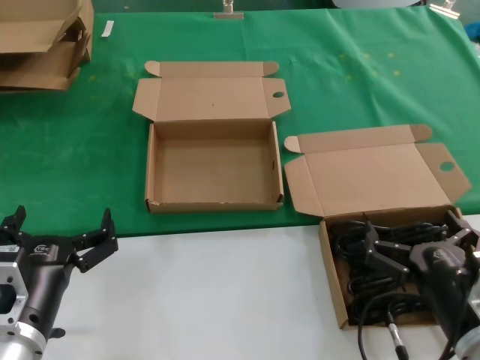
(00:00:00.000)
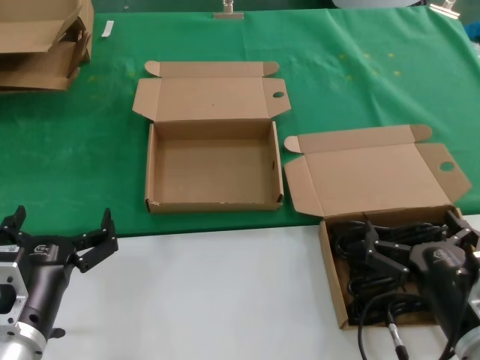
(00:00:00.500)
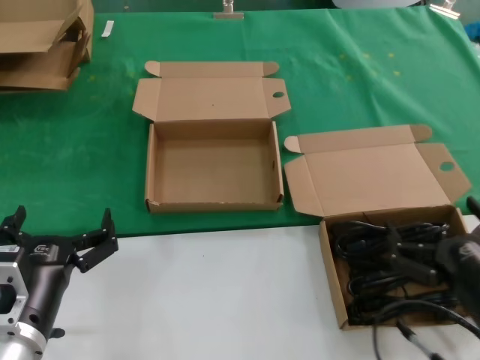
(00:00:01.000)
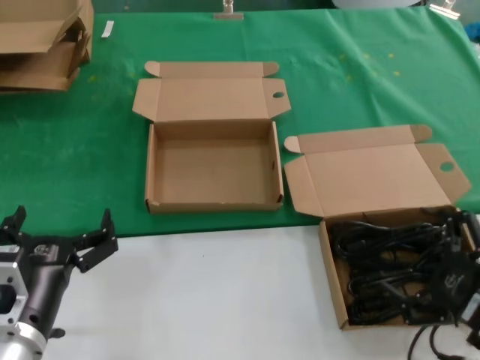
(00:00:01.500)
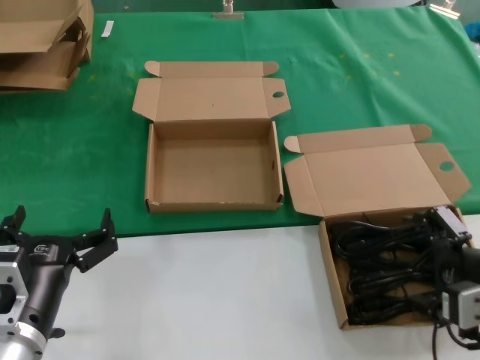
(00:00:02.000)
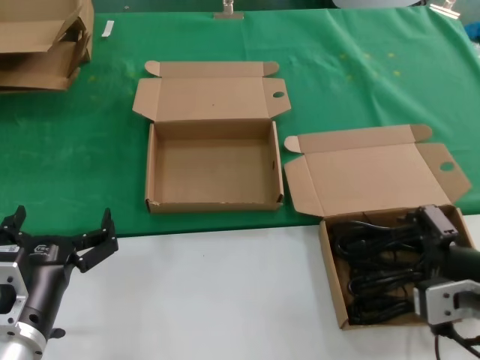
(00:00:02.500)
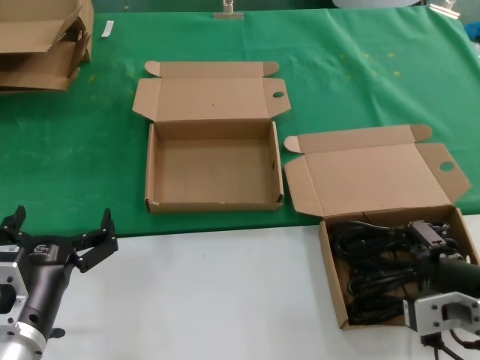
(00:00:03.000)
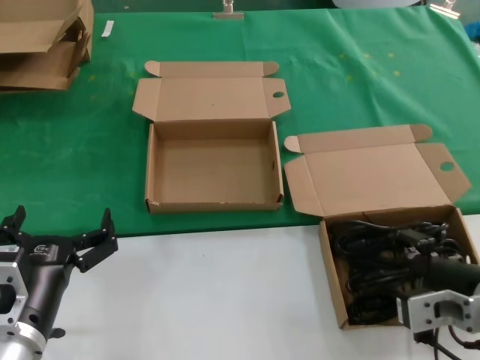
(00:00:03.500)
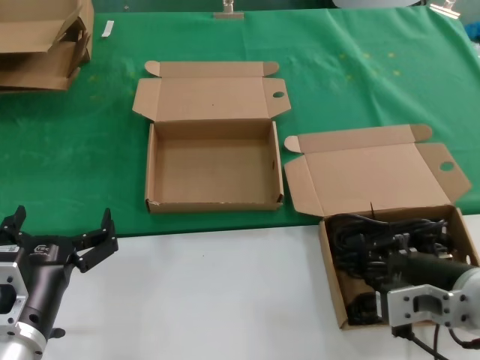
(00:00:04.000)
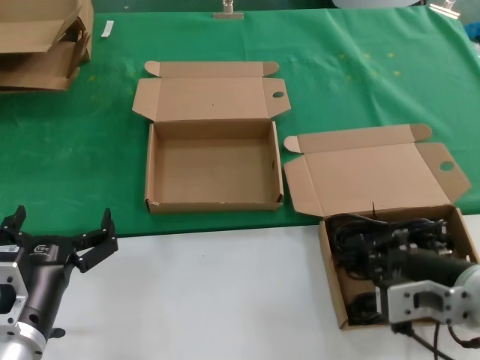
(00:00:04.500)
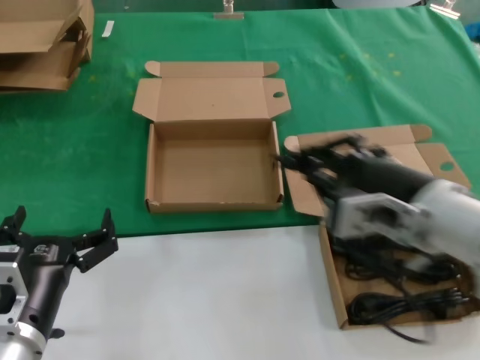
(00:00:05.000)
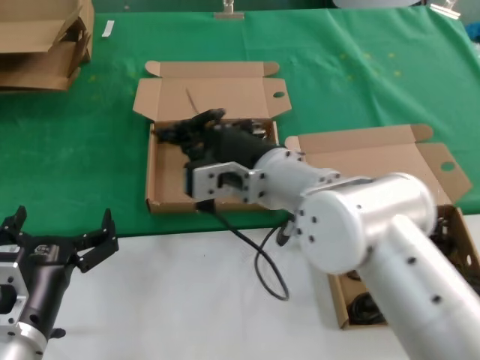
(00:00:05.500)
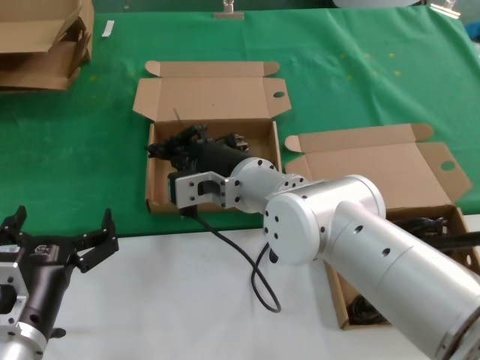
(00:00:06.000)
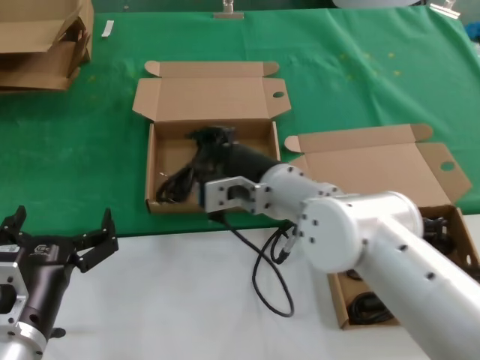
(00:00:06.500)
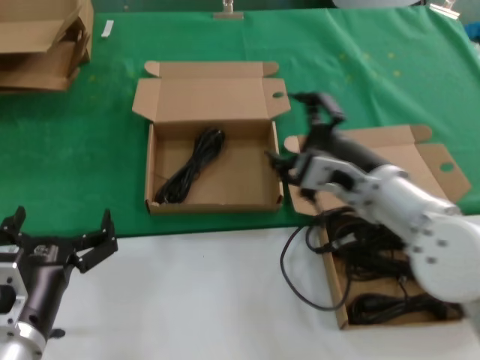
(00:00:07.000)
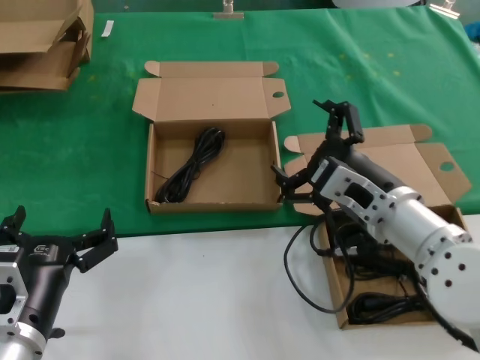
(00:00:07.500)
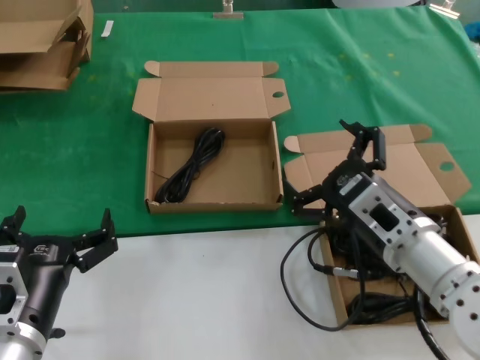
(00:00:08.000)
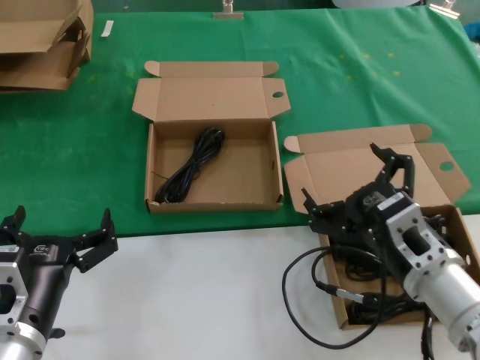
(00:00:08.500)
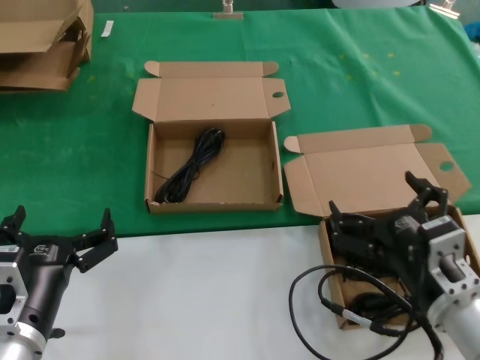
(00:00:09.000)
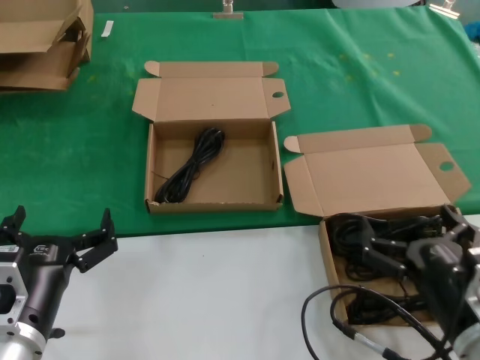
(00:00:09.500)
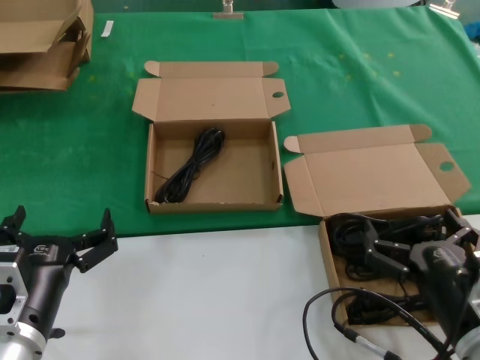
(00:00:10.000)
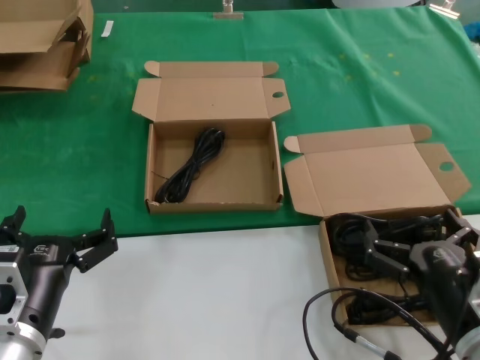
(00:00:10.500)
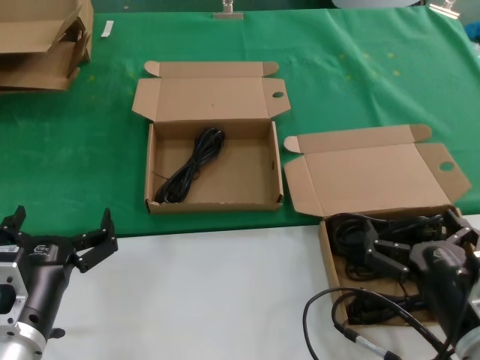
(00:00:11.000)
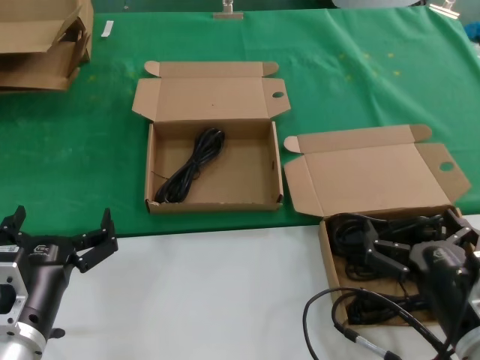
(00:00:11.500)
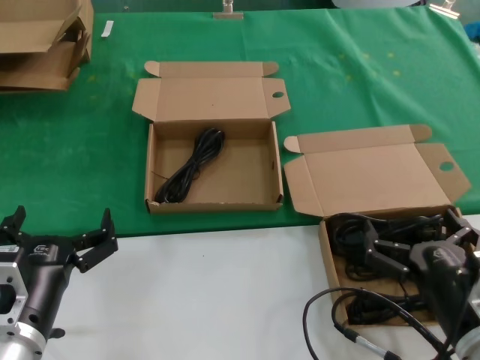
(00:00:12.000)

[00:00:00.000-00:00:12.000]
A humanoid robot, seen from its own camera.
Task of the whole recording: take the parts from the box containing them and put them into an empty box.
Step, 00:00:00.000 to 00:00:03.500: Grasp the data cable.
Step, 00:00:04.000 to 00:00:06.500: Place the data cable in the another box.
00:00:00.000 to 00:00:02.000: The right hand travels upward and to the right by roughly 10 cm.
00:00:02.000 to 00:00:04.000: The right hand is displaced to the left by roughly 5 cm.
00:00:04.000 to 00:00:06.000: The right hand is displaced to the left and forward by roughly 30 cm.
00:00:06.000 to 00:00:08.000: The right hand is displaced to the right and backward by approximately 20 cm.
00:00:08.000 to 00:00:10.000: The right hand heads backward, downward and to the right, covering roughly 15 cm.
00:00:10.000 to 00:00:12.000: The two hands keep their place.

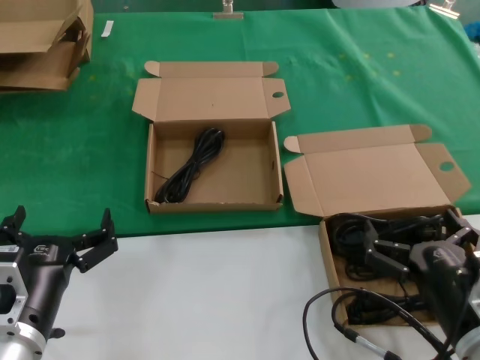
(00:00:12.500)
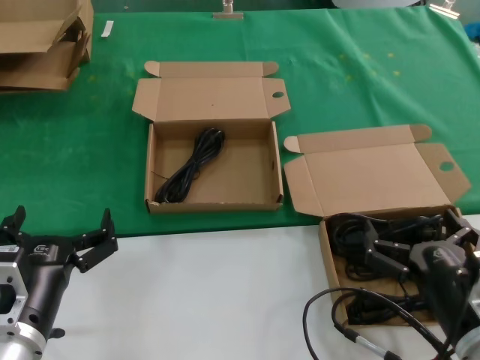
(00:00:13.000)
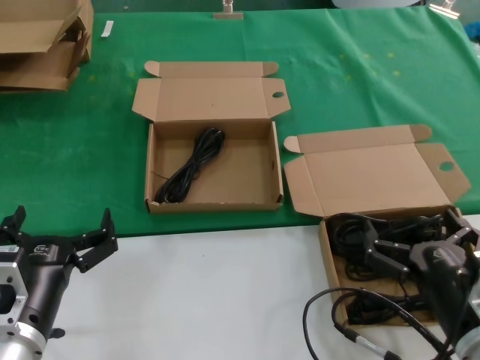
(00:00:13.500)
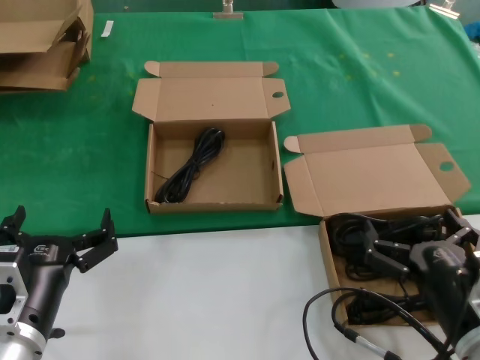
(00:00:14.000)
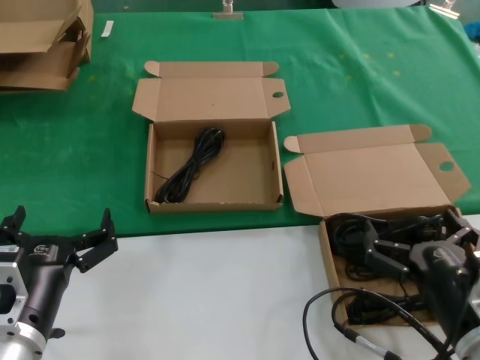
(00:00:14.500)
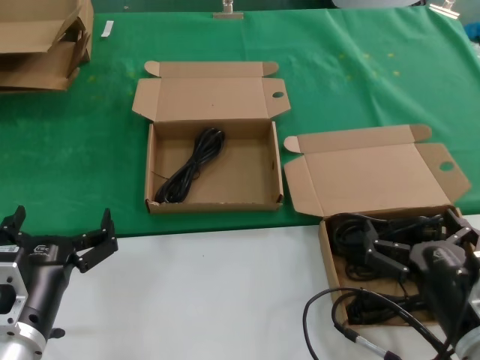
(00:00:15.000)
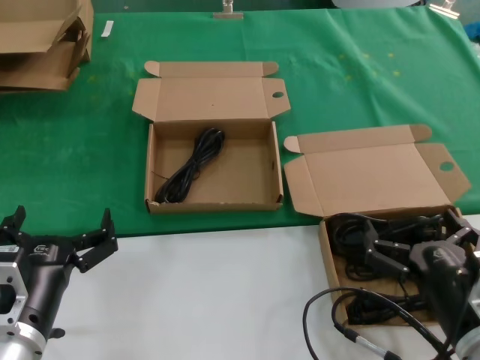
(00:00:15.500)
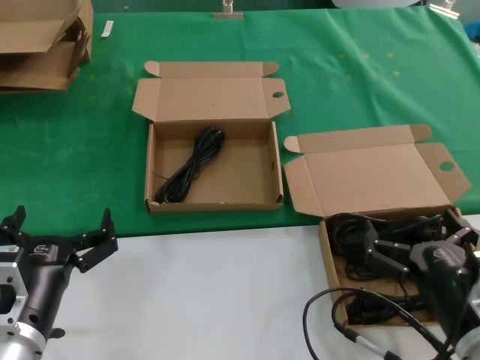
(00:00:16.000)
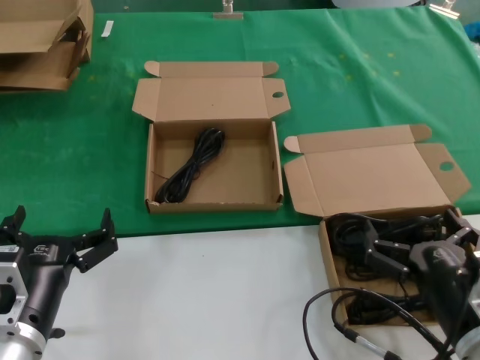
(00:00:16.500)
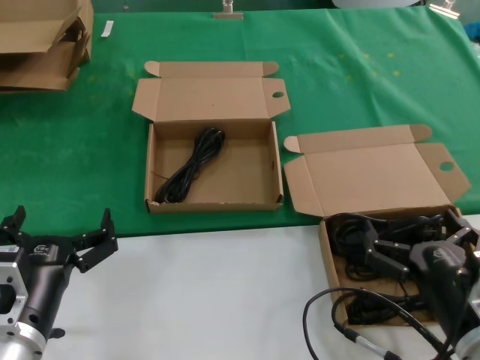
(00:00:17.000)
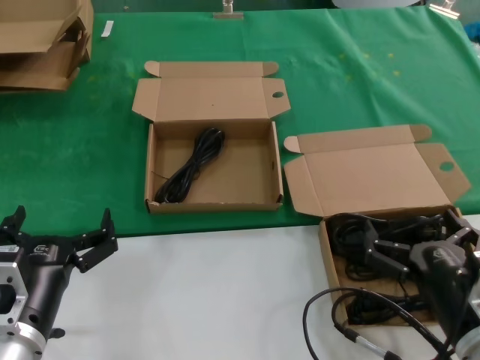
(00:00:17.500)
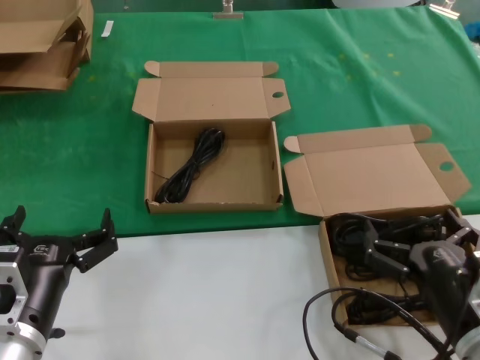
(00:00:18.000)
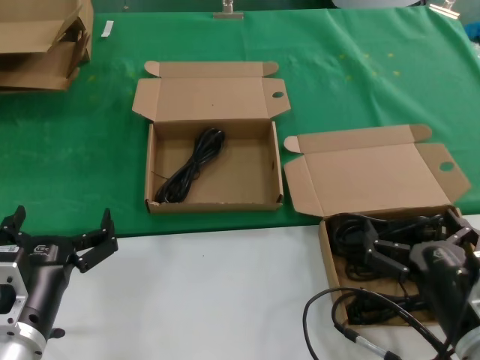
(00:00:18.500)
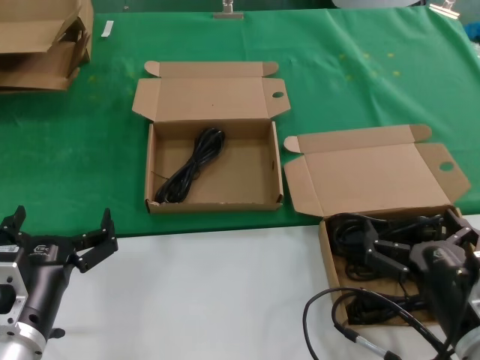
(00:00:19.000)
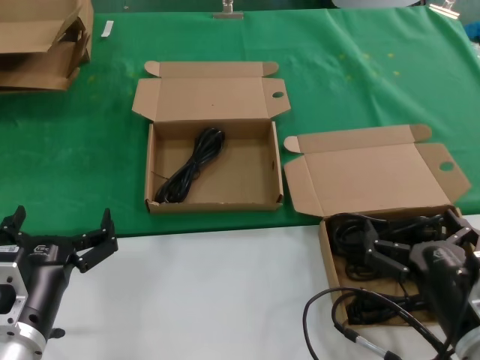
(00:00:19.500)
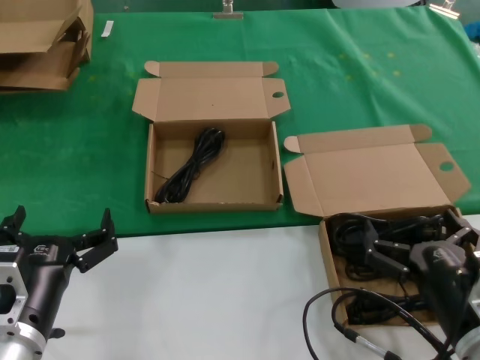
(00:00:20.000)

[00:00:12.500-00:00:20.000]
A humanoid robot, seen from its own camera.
Task of the whole recording: take the parts from the box containing them and put them into an empty box.
00:00:12.500 to 00:00:20.000: Neither hand changes place.

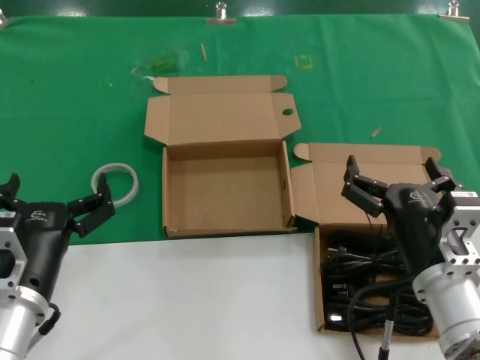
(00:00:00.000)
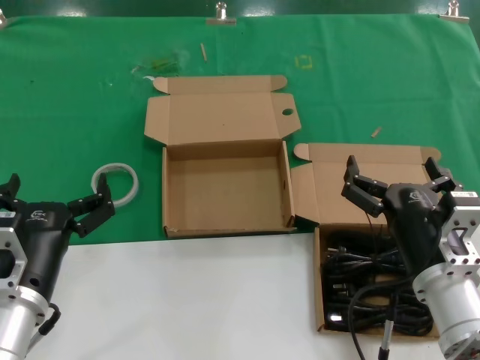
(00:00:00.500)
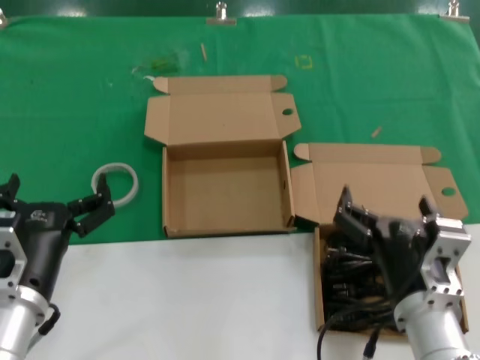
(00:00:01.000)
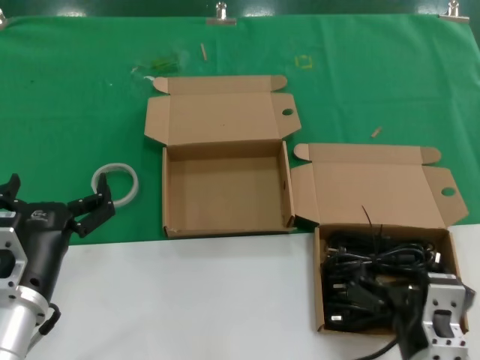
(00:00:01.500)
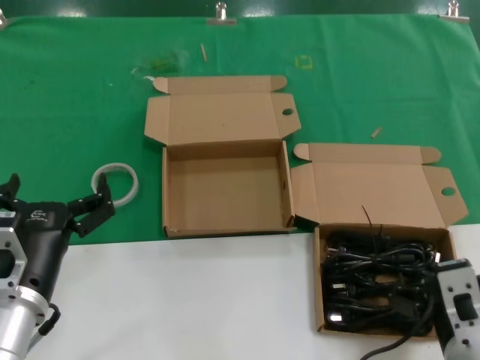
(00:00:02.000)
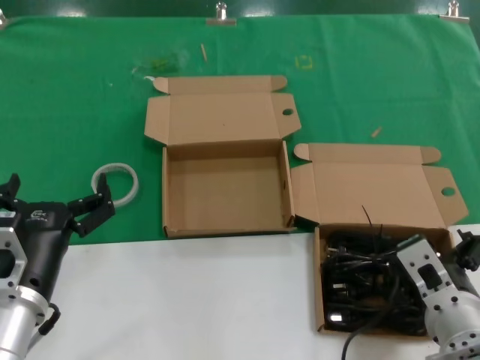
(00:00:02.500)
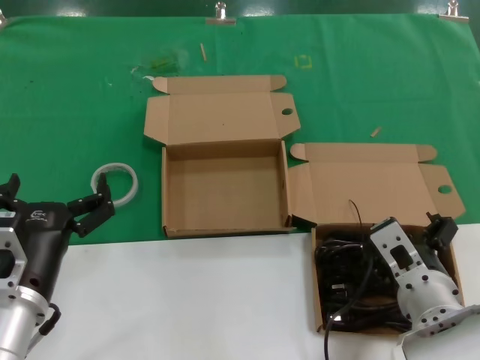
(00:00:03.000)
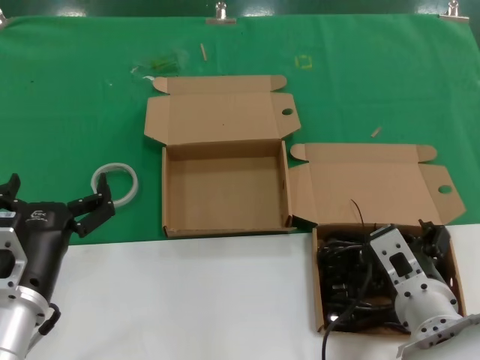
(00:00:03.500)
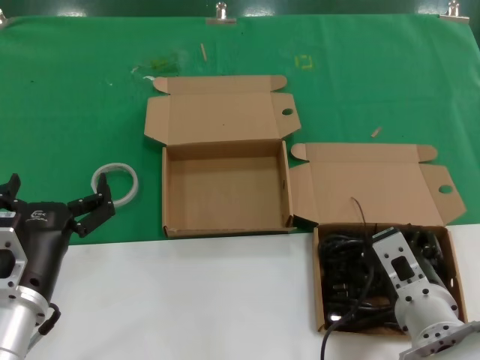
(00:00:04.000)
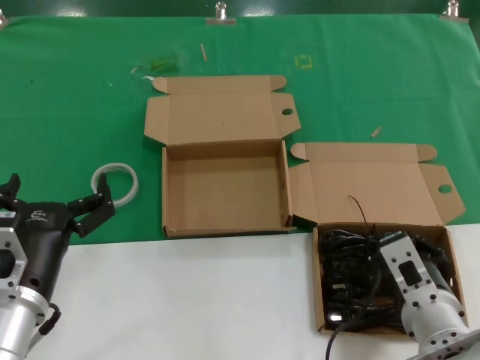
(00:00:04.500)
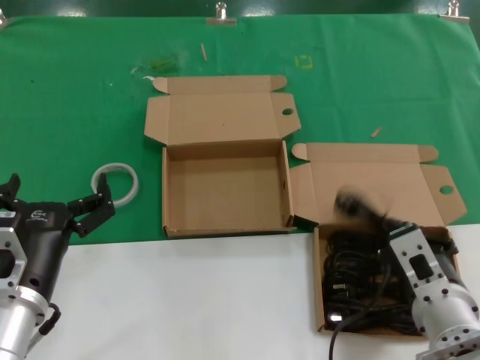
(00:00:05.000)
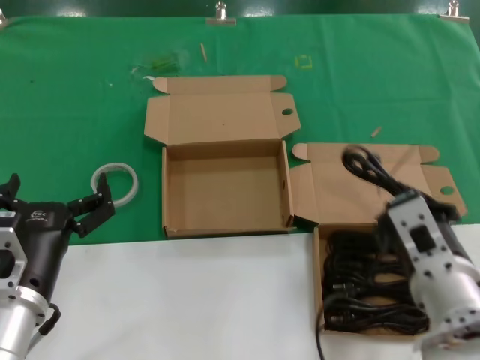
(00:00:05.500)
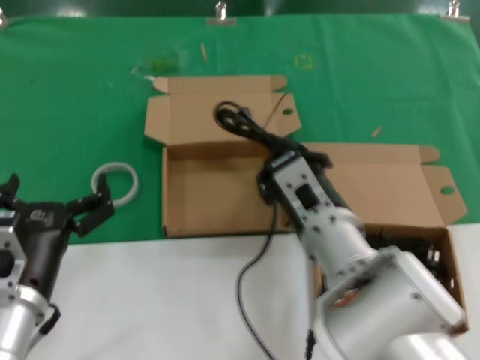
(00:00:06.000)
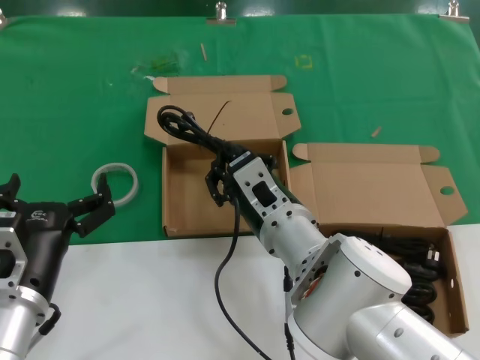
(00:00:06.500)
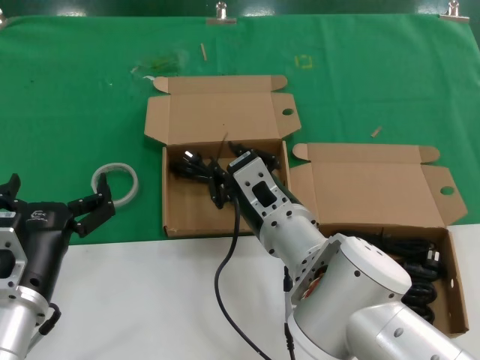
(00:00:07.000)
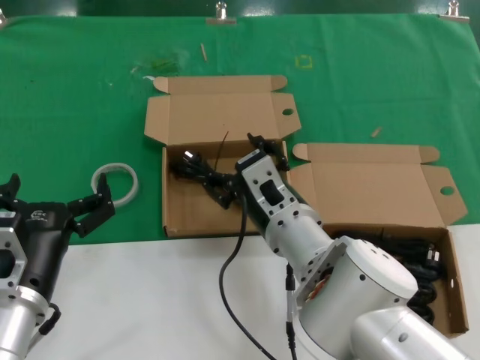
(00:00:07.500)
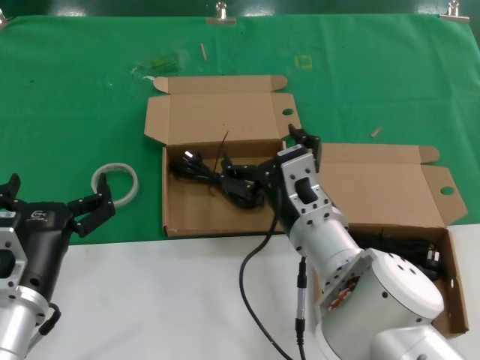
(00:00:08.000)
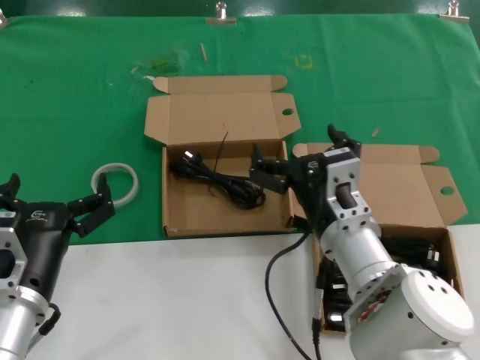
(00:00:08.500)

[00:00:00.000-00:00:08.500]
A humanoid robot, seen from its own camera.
Task of the whole recording: take the parts from the box containing them and put them into an empty box.
Step, 00:00:00.000 to 00:00:05.000: Grasp the data cable.
Step, 00:00:05.500 to 00:00:06.500: Place the data cable in the another box.
00:00:00.000 to 00:00:02.000: The right hand heads backward, covering roughly 5 cm.
00:00:02.000 to 00:00:04.000: The right hand goes approximately 10 cm forward.
00:00:04.000 to 00:00:06.500: The right hand goes roughly 15 cm to the left and forward.
00:00:06.500 to 00:00:08.500: The right hand is displaced to the right by about 5 cm.
